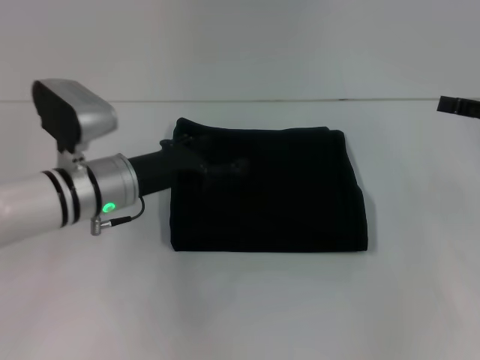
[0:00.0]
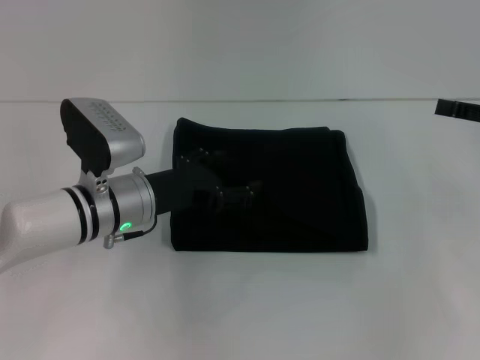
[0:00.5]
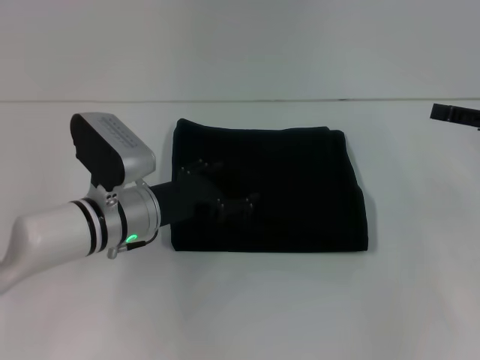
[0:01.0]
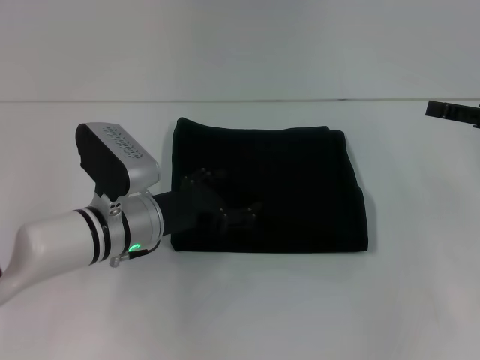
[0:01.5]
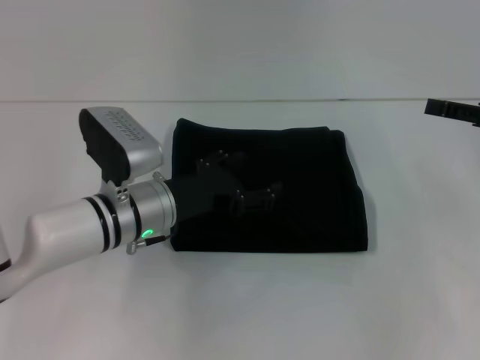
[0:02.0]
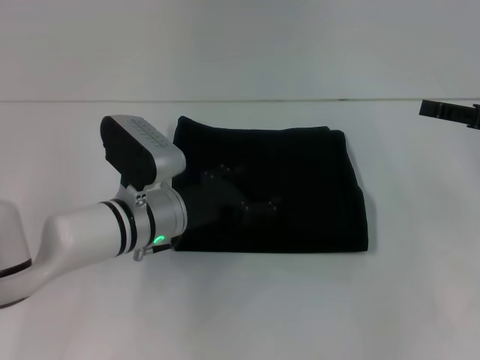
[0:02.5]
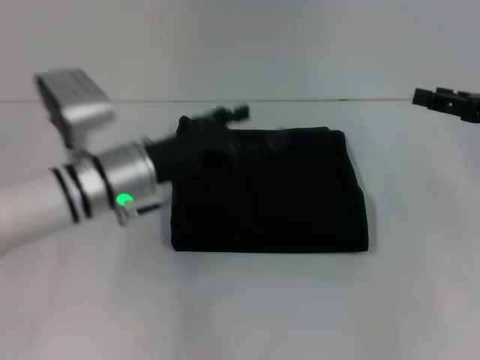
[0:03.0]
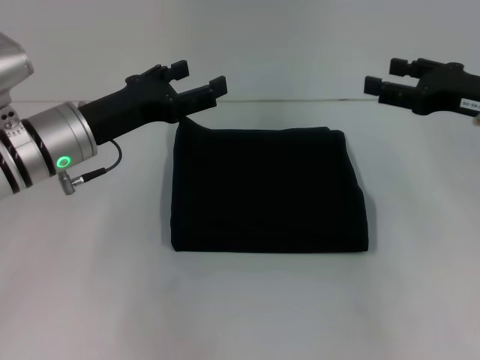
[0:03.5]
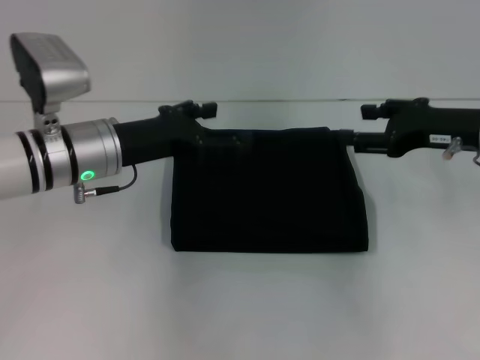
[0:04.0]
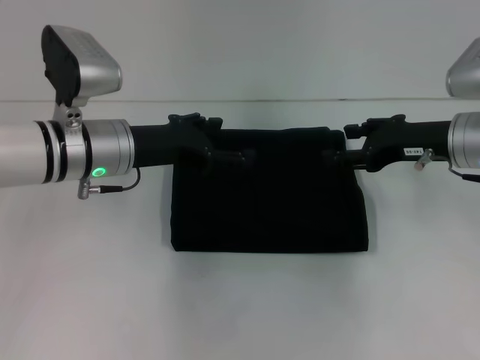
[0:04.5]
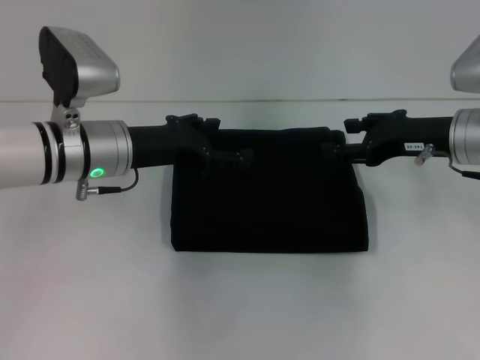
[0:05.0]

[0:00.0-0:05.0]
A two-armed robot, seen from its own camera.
0:00.0 to 0:02.5: The left gripper moves about 5 cm.
0:02.5 to 0:05.0: The right gripper moves to the left, roughly 10 cm; the left gripper is displaced upward and to the left by approximately 10 cm.

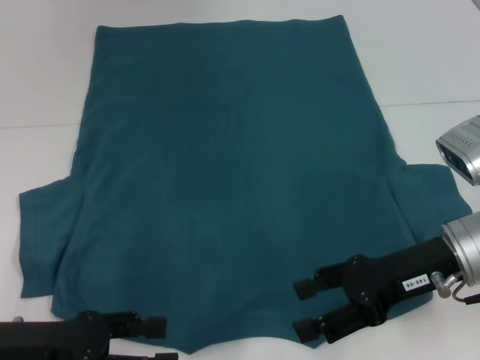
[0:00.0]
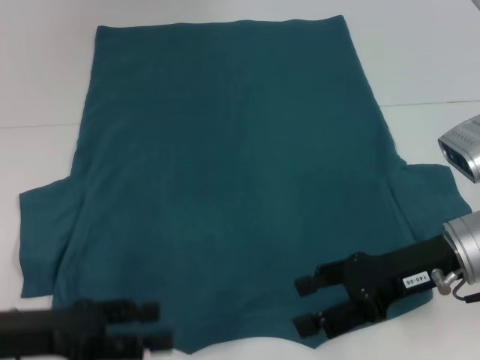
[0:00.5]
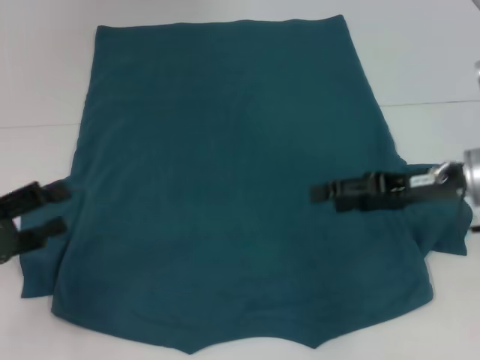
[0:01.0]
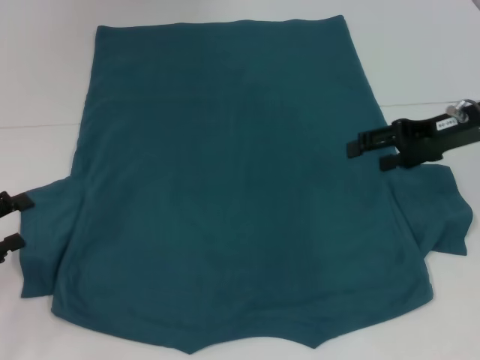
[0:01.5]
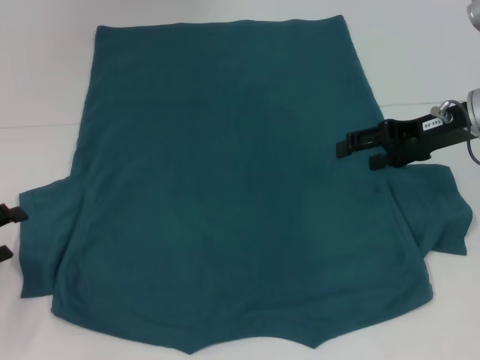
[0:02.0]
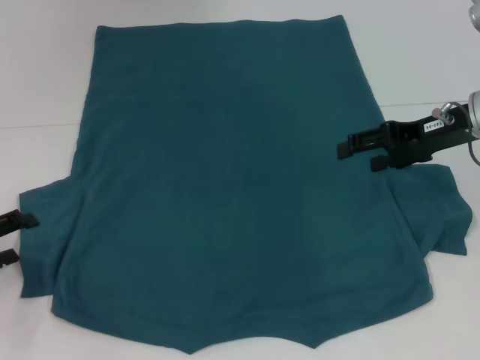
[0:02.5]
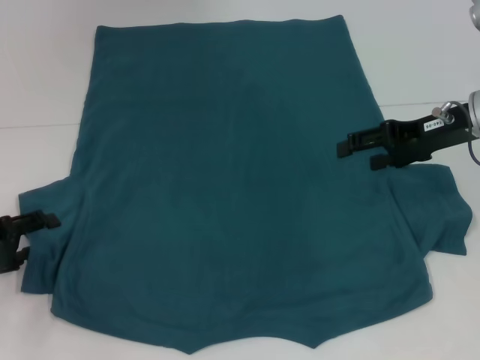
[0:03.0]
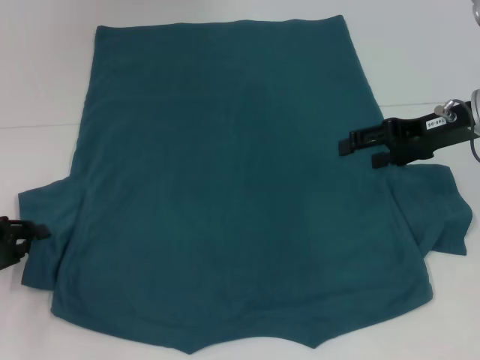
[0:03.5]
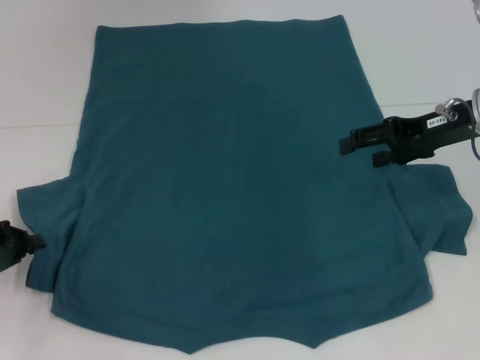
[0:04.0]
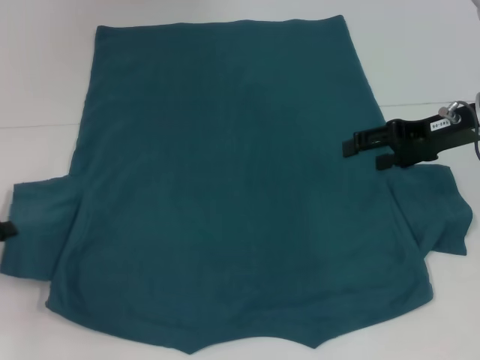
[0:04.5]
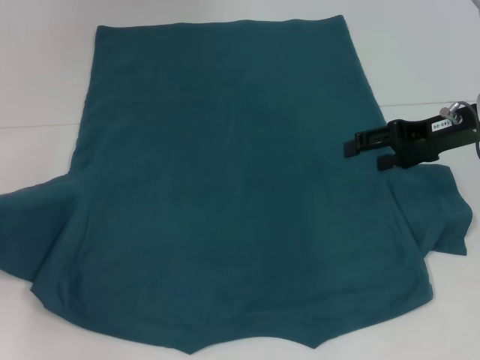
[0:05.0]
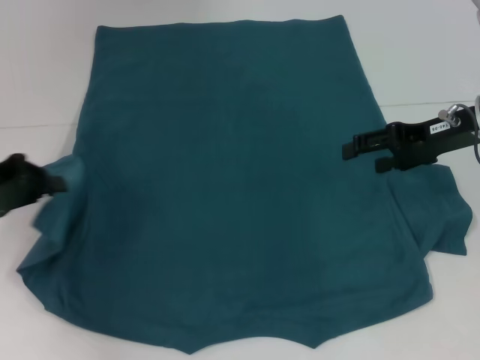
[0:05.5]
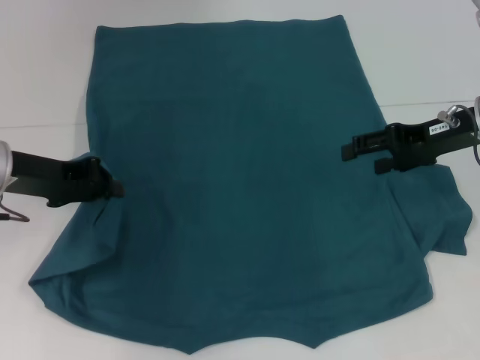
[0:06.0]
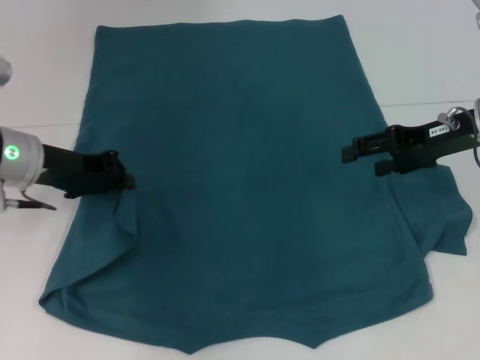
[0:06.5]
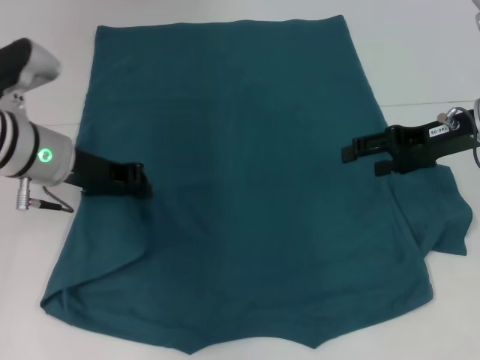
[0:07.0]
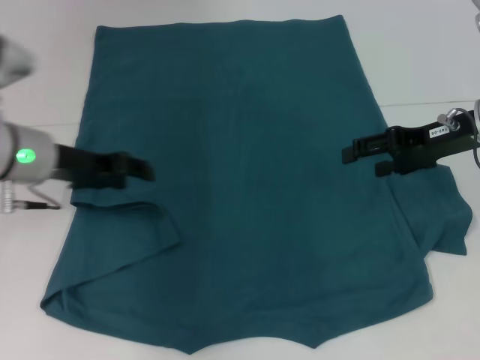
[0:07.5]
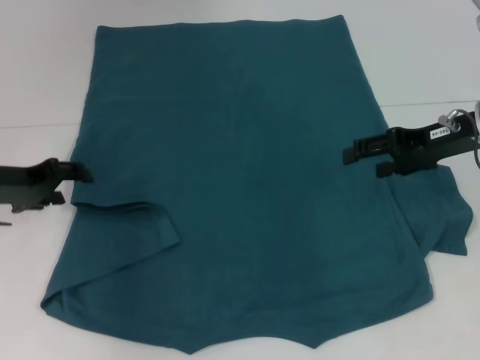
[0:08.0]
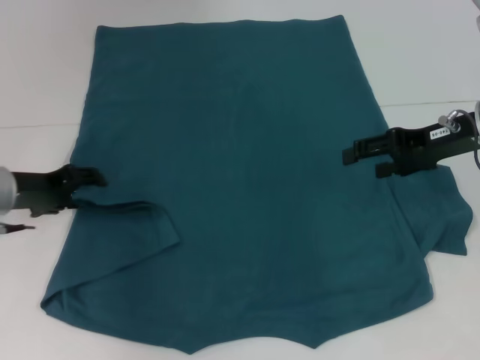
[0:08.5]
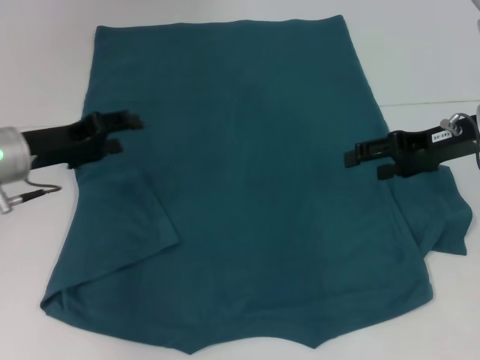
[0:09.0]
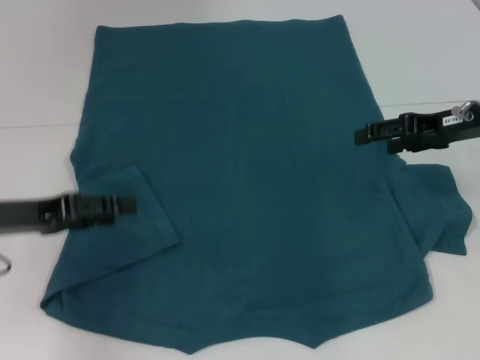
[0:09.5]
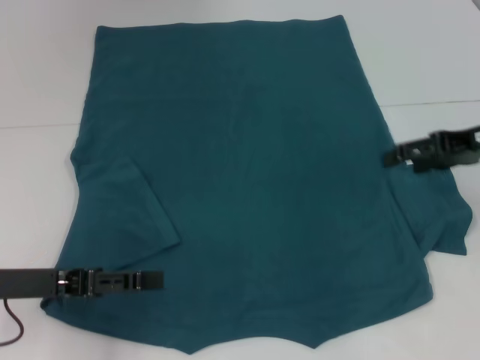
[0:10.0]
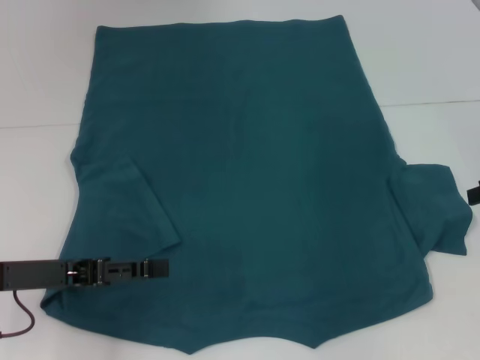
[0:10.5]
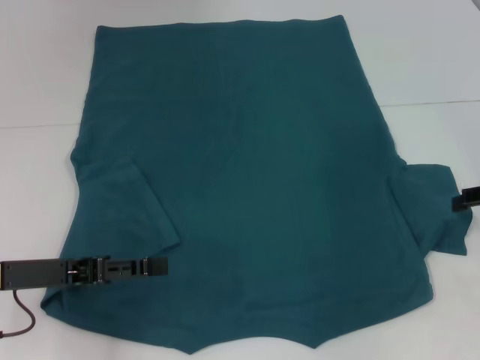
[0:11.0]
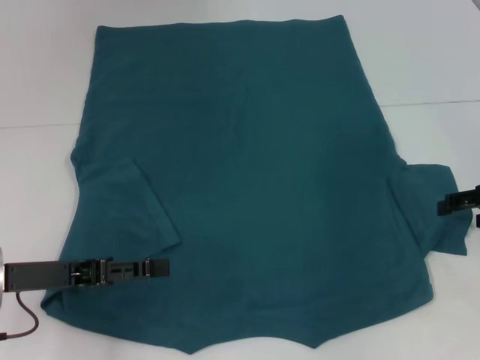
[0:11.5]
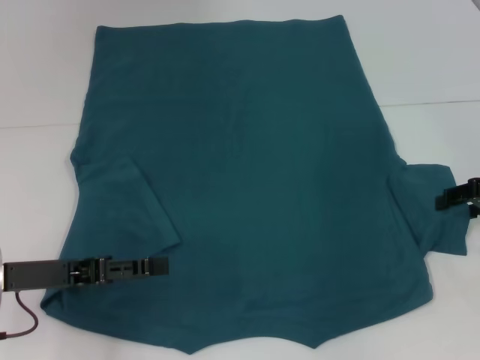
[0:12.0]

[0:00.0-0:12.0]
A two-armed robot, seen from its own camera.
Step, 0:00.0 to 0:09.0: Fold the bottom left sleeve with your left hand.
0:00.0 to 0:02.0: The right gripper goes some 15 cm forward, upward and to the right. Meanwhile the left gripper travels to the left and forward by about 10 cm.
0:02.0 to 0:04.0: The left gripper closes up.
0:04.0 to 0:06.0: The left gripper travels upward, to the right and forward by about 15 cm.
0:06.0 to 0:08.0: The left gripper ends up about 5 cm from where it was, and opens.
0:08.0 to 0:10.0: The left gripper goes some 10 cm backward.
0:10.0 to 0:12.0: The right gripper travels downward by about 5 cm.

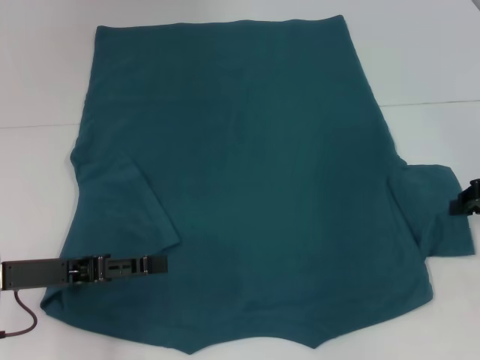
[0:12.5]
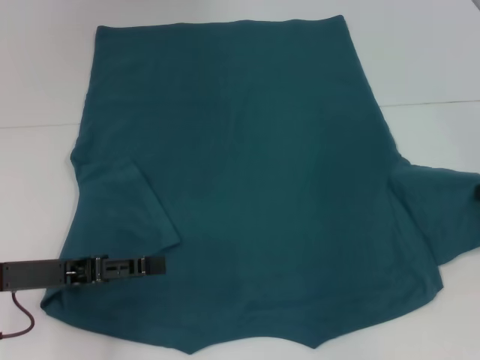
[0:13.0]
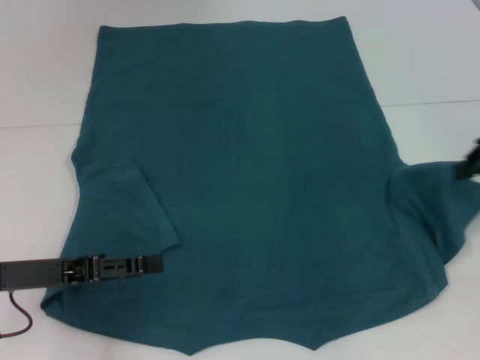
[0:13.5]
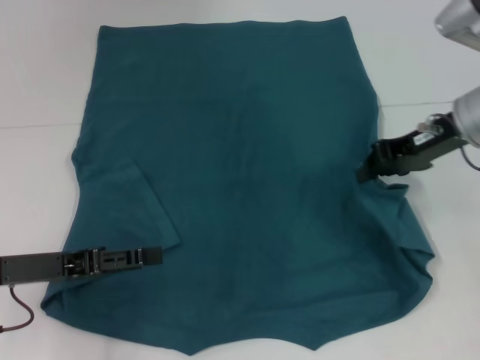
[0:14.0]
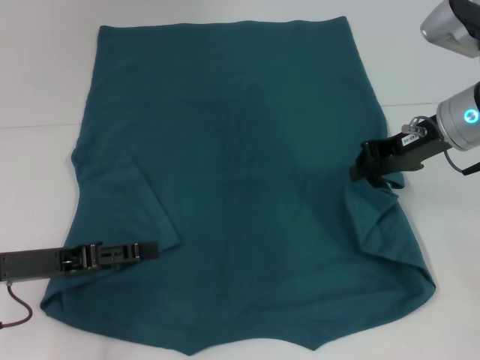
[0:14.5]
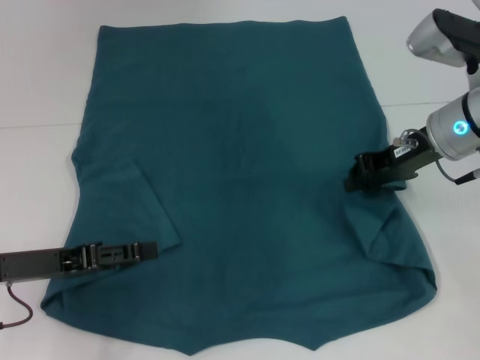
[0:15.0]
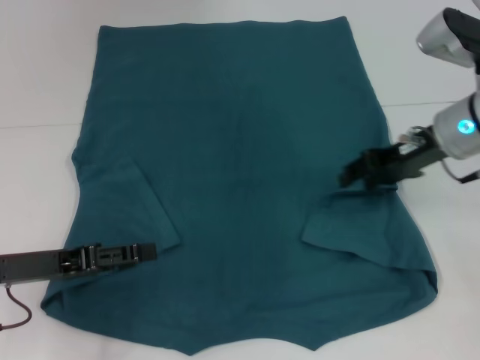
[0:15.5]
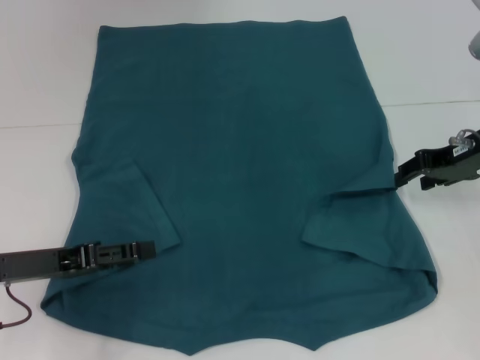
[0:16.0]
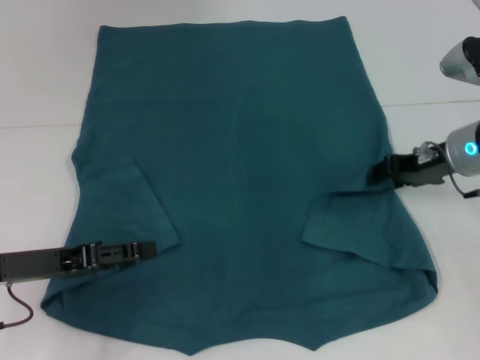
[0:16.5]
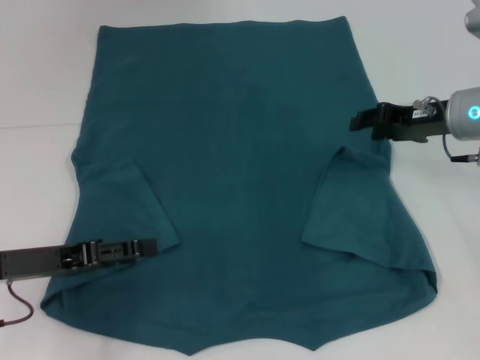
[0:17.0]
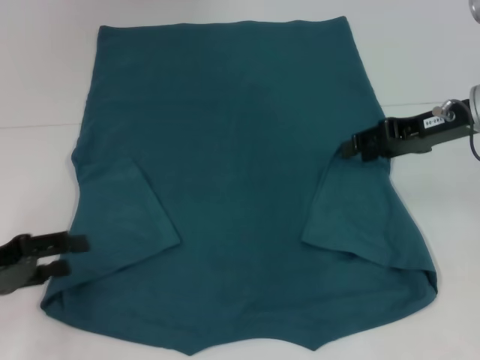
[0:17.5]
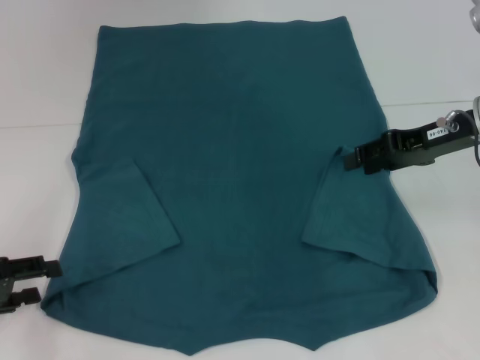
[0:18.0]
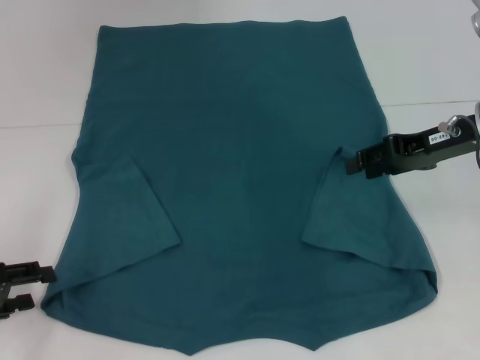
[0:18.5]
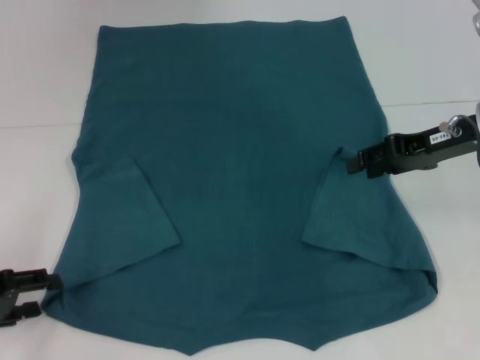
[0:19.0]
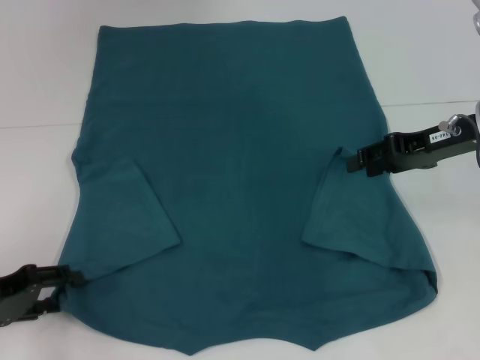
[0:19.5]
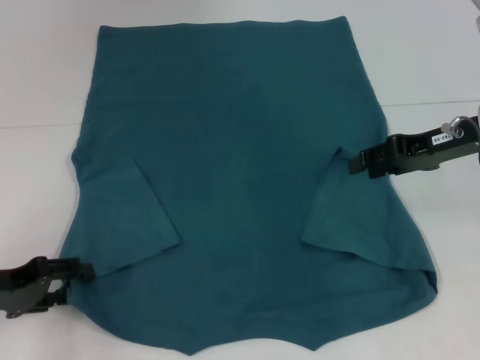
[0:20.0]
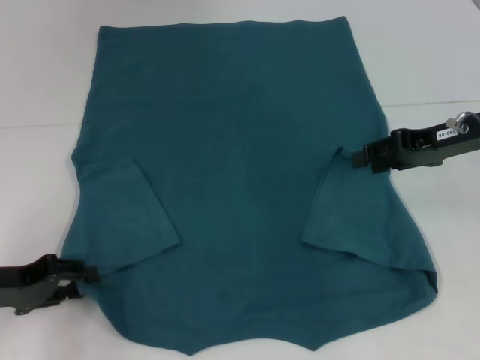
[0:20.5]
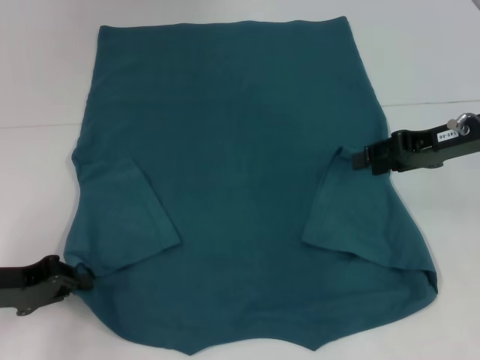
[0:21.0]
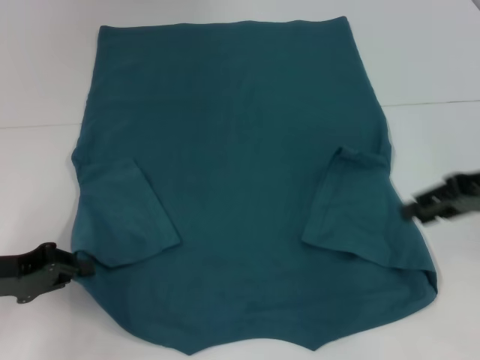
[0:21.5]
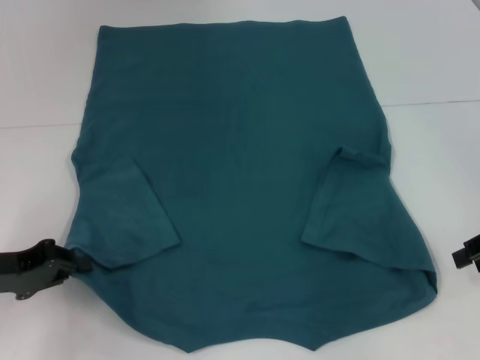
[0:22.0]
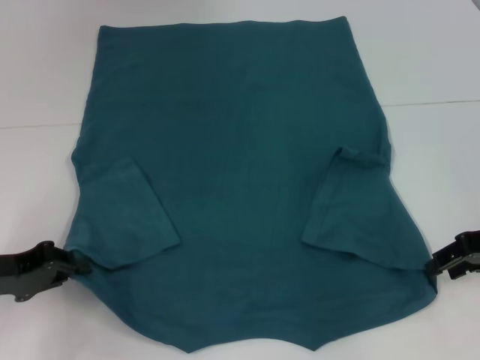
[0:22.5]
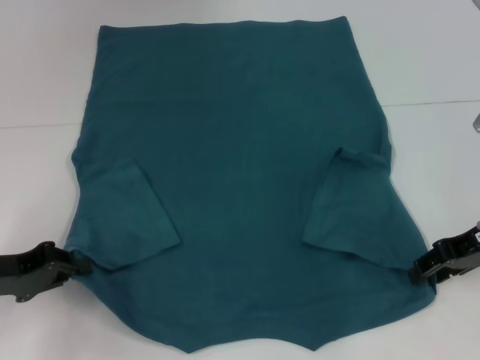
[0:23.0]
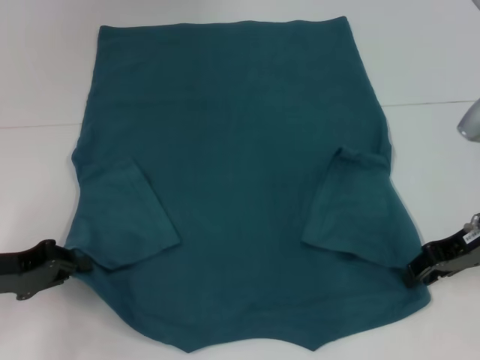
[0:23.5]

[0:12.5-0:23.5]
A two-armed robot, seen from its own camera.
Step, 0:12.5 to 0:17.0: Fold the bottom right sleeve to the right.
Step, 0:17.5 to 0:20.5: Grab the bottom left corner with your left hand.
0:12.5 to 0:14.5: The right gripper shifts roughly 15 cm to the left and forward.
0:14.5 to 0:16.0: The right gripper is displaced to the right by some 5 cm, and opens up.
0:16.0 to 0:18.0: The left gripper heads to the left, covering roughly 10 cm.
0:18.0 to 0:20.0: There are only small adjustments of the grippers.
0:20.0 to 0:21.5: The left gripper closes, while the right gripper shifts by some 5 cm.
0:21.5 to 0:23.5: The right gripper is displaced downward by roughly 5 cm.
